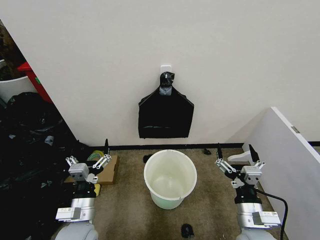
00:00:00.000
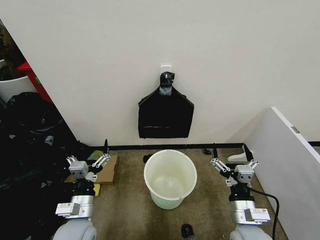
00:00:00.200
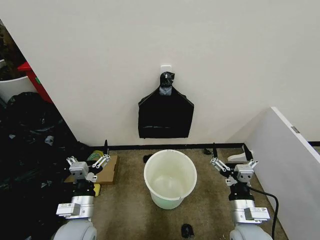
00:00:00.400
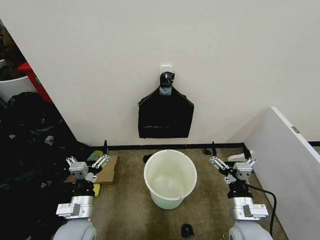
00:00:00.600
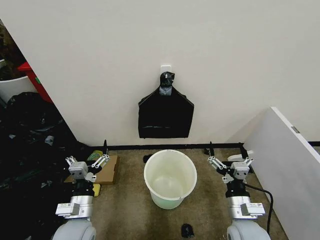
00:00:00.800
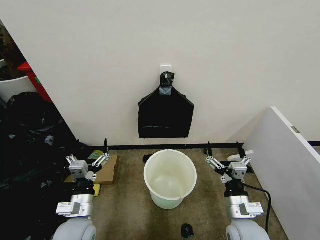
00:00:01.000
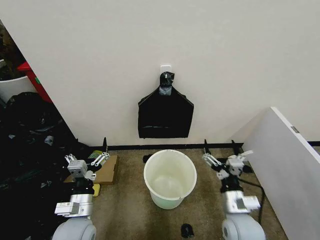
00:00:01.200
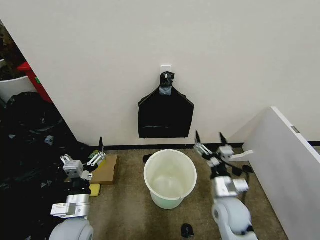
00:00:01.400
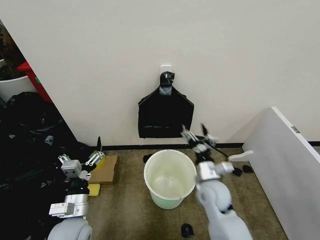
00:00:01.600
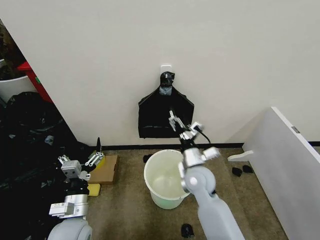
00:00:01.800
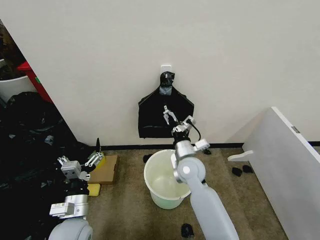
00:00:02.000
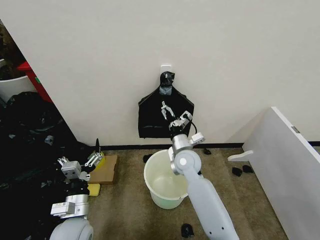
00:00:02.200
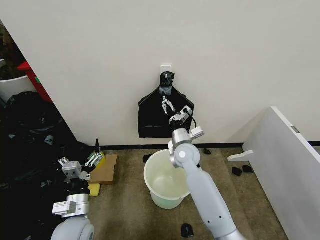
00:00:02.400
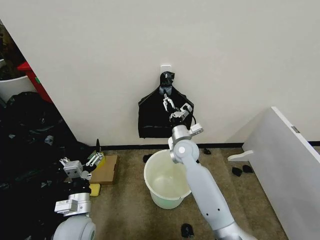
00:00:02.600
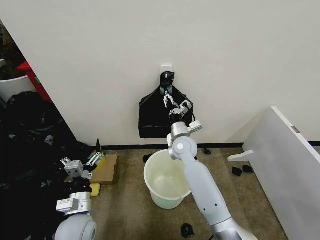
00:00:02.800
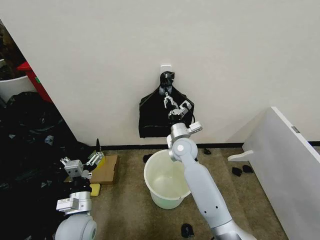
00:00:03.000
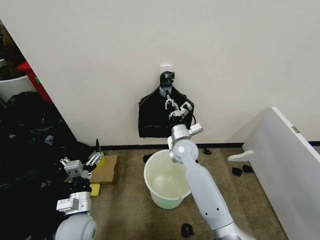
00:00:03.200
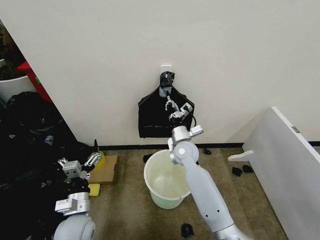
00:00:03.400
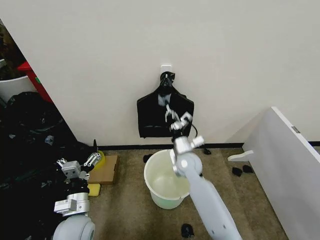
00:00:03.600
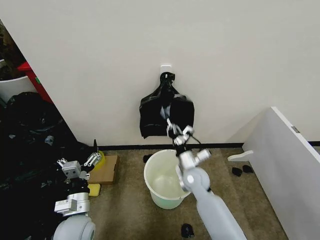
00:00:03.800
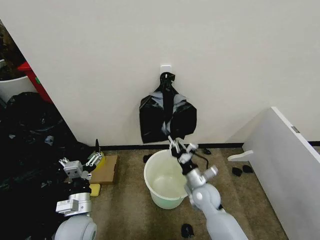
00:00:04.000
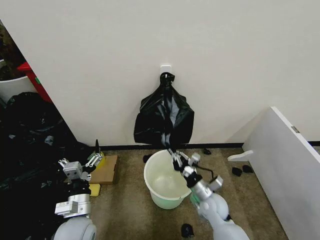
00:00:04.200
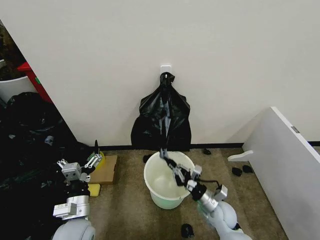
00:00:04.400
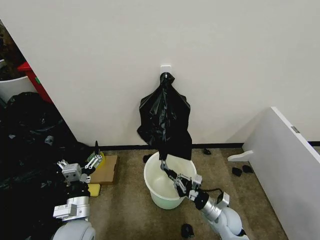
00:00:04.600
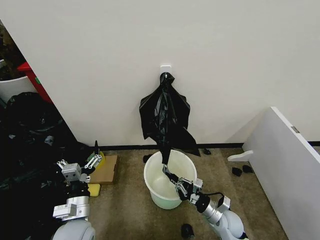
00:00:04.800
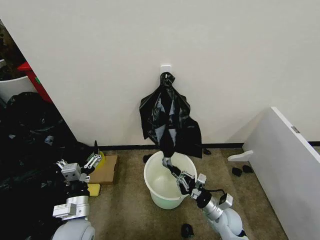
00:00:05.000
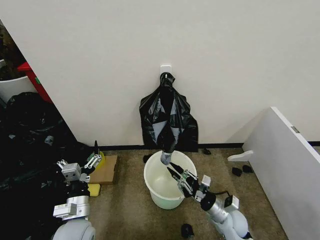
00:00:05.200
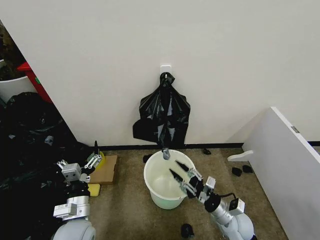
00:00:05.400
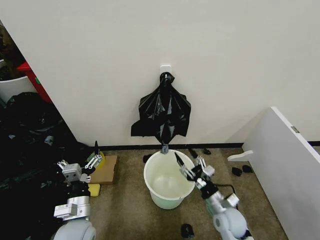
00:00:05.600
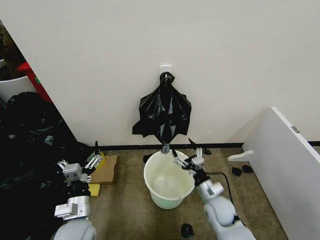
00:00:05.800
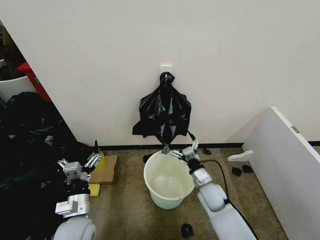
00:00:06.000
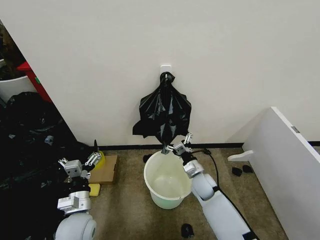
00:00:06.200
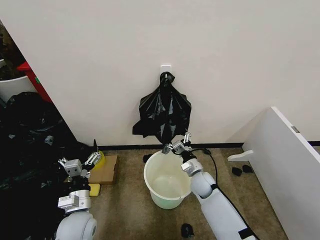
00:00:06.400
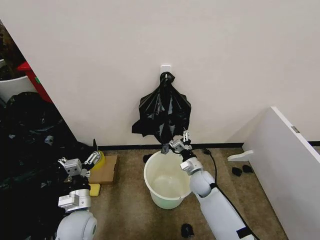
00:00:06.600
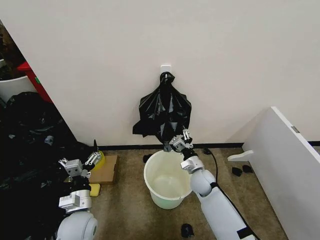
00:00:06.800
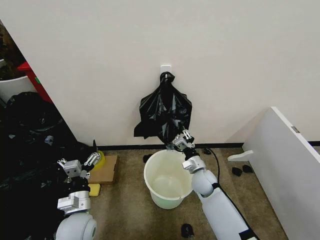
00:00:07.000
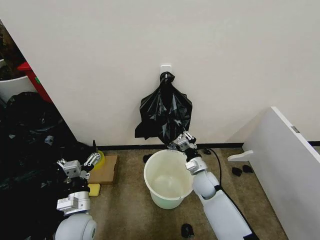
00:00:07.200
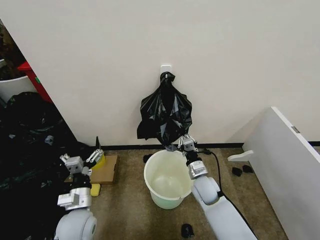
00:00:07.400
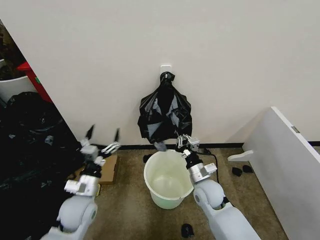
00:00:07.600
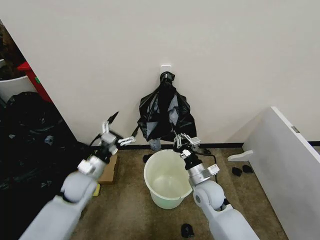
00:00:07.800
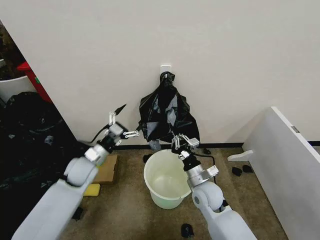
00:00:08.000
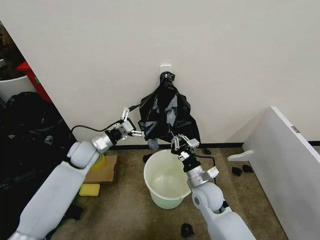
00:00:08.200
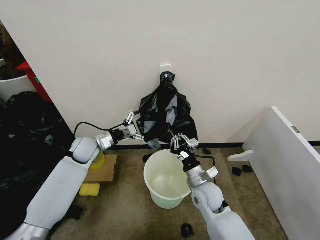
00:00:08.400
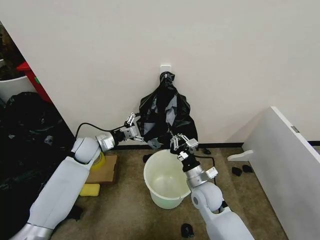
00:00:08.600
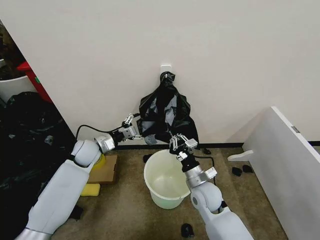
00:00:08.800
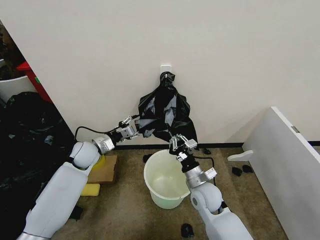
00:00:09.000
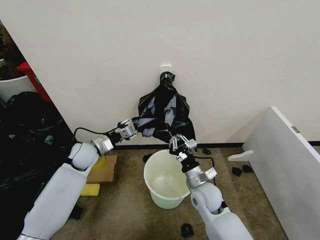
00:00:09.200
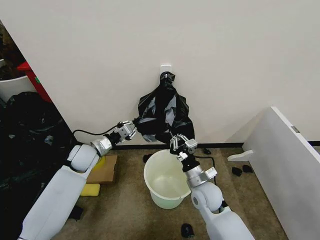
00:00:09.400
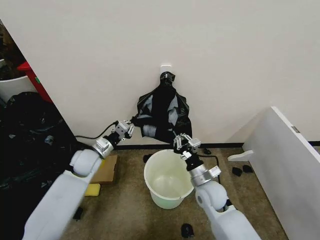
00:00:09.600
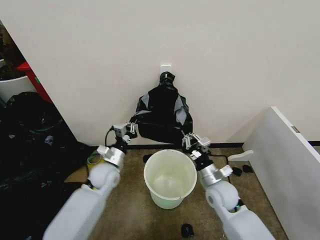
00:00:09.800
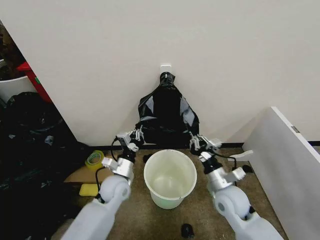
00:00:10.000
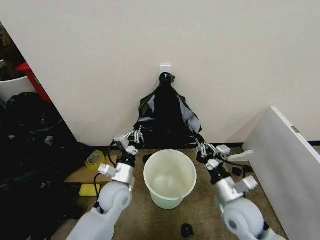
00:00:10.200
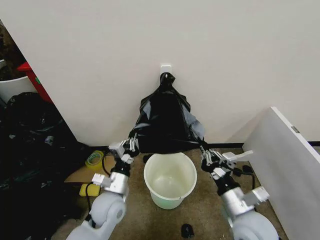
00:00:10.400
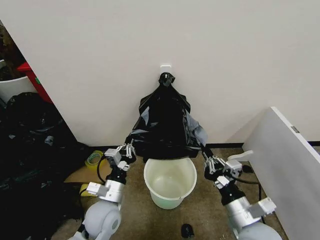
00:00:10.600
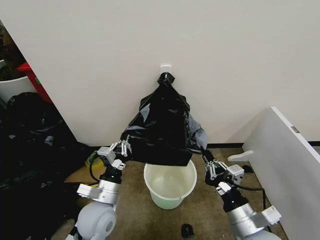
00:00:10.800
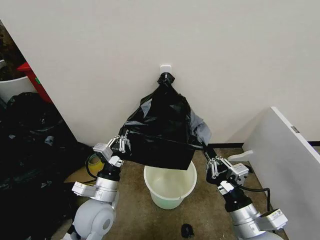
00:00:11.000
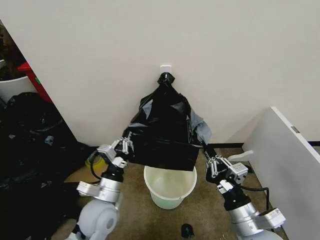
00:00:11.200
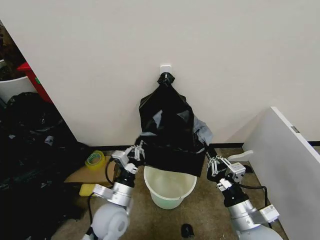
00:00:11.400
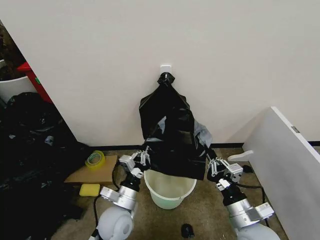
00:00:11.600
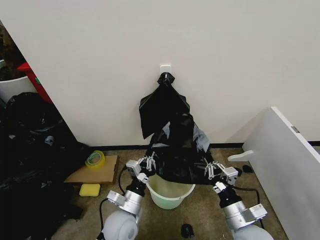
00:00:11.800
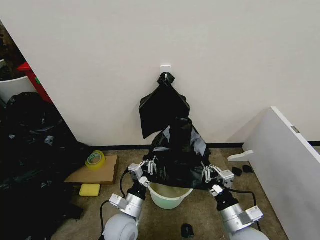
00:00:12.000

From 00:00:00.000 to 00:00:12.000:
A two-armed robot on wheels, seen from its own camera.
Task of the whole recording: Place the garbage bag over the trash bin.
From 00:00:01.600 to 00:00:03.000: The right gripper is displaced forward and to the left by about 20 cm, and closes.
From 00:00:03.000 to 00:00:04.400: The right gripper heads backward, downward and to the right, covering some 25 cm.
From 00:00:04.400 to 00:00:06.000: The right gripper moves forward, some 5 cm, and opens its fingers.
From 00:00:06.000 to 00:00:07.600: The right gripper closes its fingers.
From 00:00:07.600 to 00:00:09.000: The left gripper travels forward by about 20 cm, and closes.
From 00:00:09.000 to 00:00:10.400: The right gripper shifts approximately 15 cm backward, to the right and upward. Meanwhile the left gripper moves backward and to the right, approximately 20 cm, and closes.
From 00:00:10.400 to 00:00:12.000: The left gripper moves downward and backward, some 5 cm. The right gripper goes about 5 cm downward.

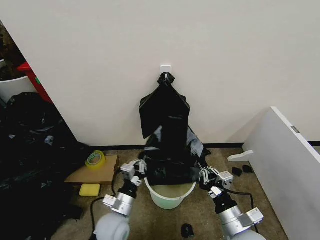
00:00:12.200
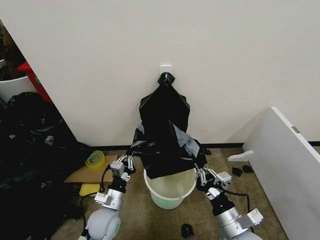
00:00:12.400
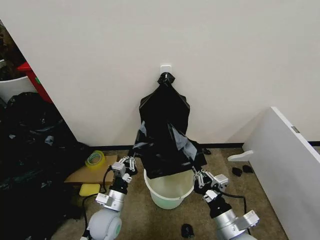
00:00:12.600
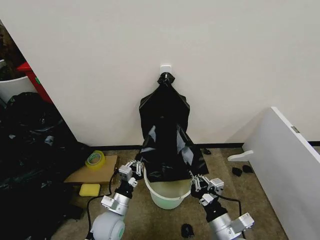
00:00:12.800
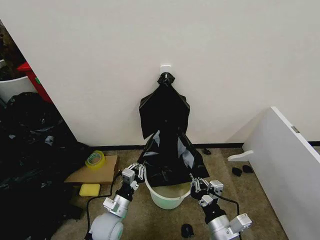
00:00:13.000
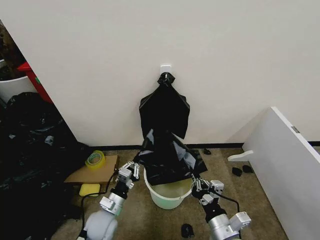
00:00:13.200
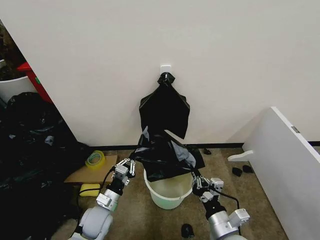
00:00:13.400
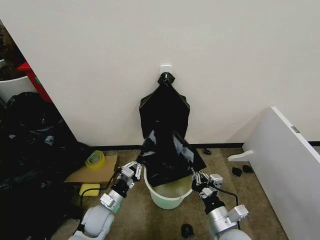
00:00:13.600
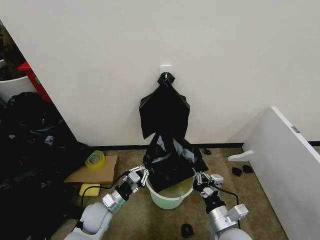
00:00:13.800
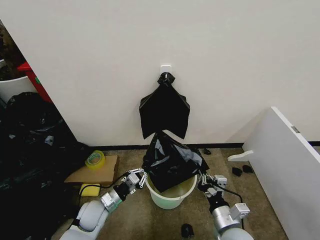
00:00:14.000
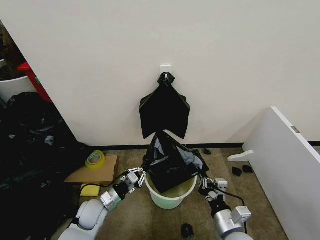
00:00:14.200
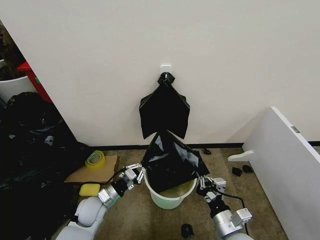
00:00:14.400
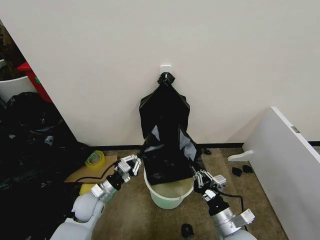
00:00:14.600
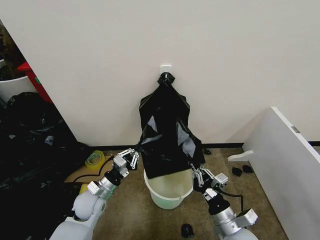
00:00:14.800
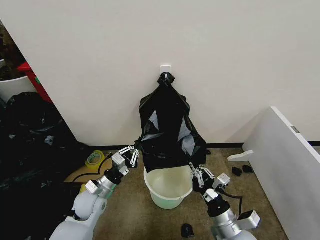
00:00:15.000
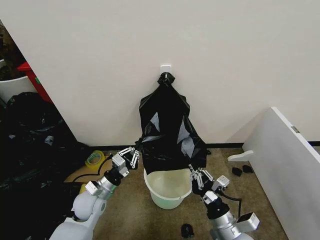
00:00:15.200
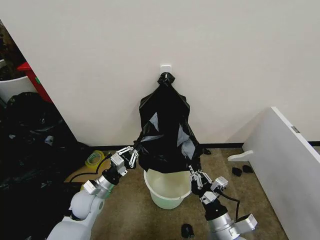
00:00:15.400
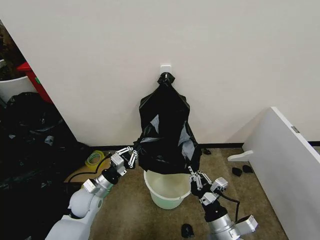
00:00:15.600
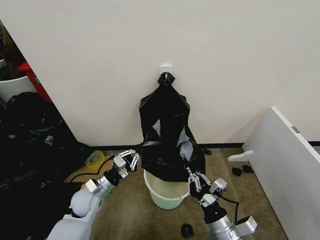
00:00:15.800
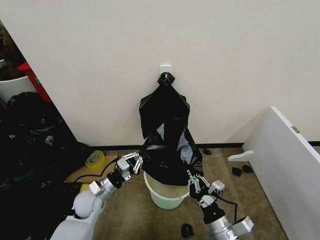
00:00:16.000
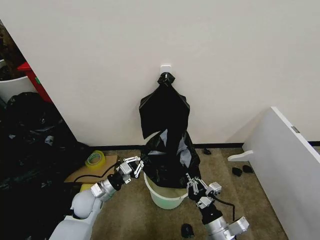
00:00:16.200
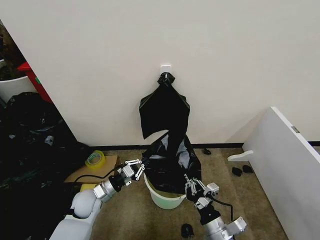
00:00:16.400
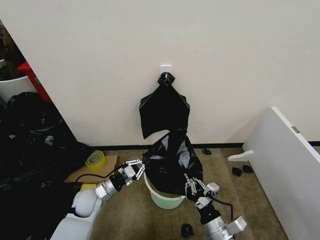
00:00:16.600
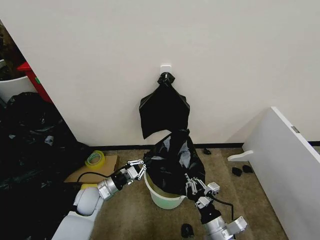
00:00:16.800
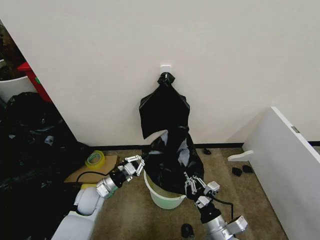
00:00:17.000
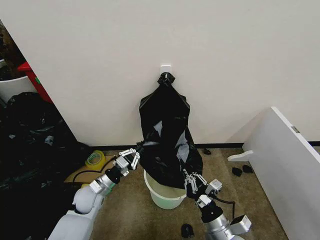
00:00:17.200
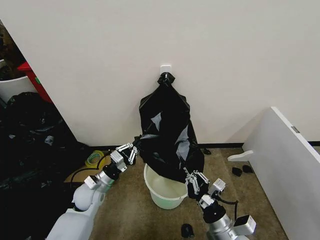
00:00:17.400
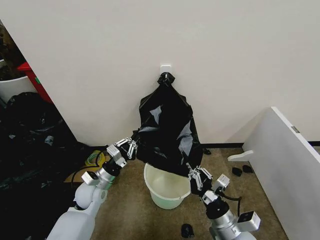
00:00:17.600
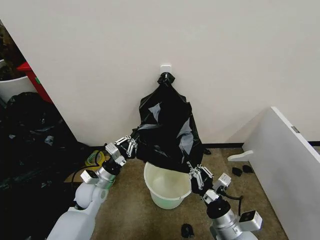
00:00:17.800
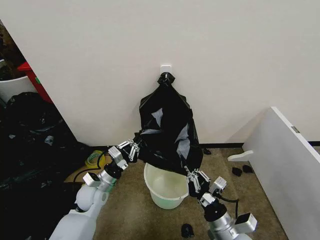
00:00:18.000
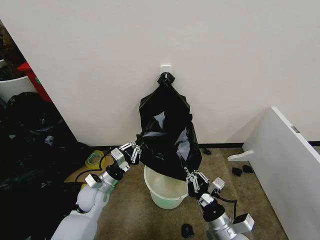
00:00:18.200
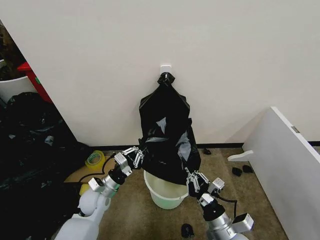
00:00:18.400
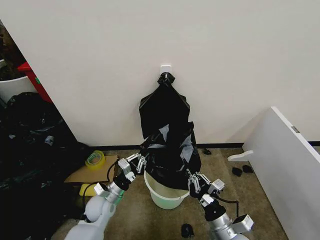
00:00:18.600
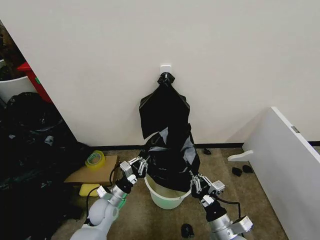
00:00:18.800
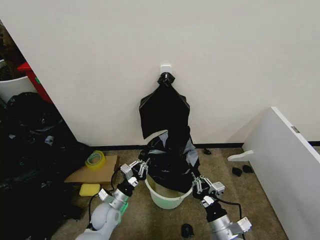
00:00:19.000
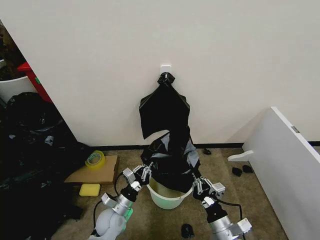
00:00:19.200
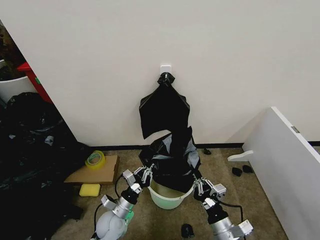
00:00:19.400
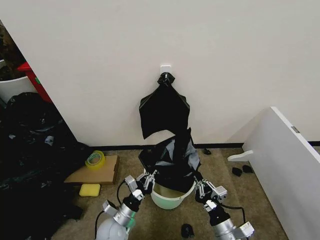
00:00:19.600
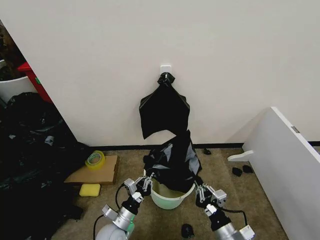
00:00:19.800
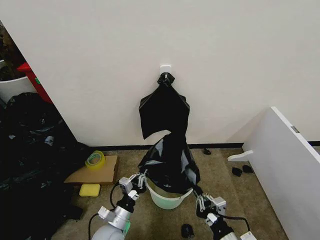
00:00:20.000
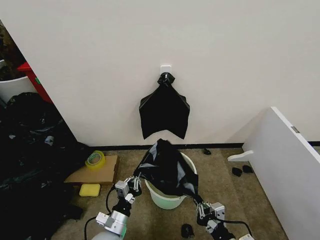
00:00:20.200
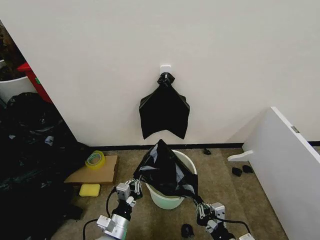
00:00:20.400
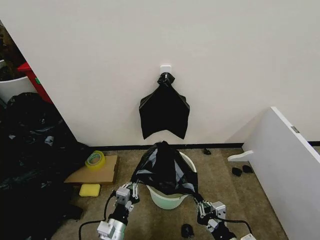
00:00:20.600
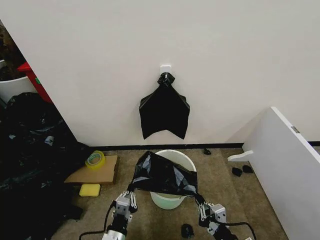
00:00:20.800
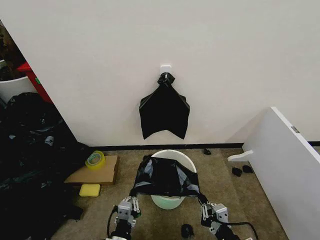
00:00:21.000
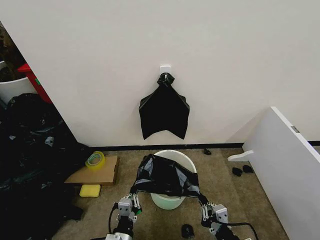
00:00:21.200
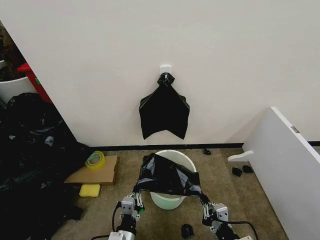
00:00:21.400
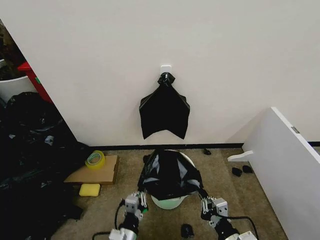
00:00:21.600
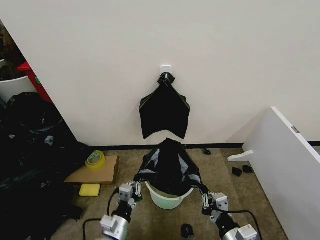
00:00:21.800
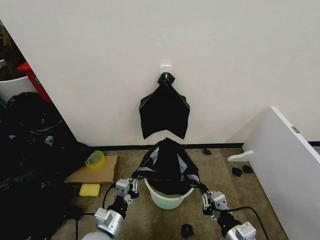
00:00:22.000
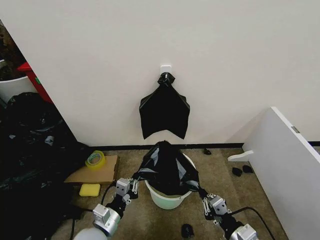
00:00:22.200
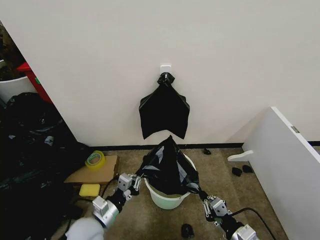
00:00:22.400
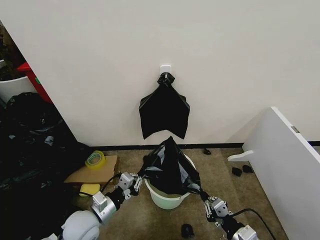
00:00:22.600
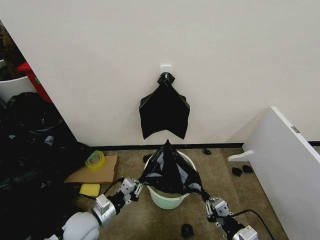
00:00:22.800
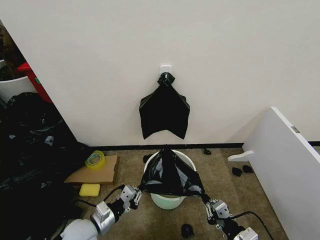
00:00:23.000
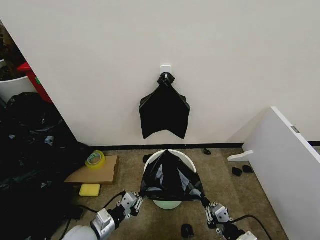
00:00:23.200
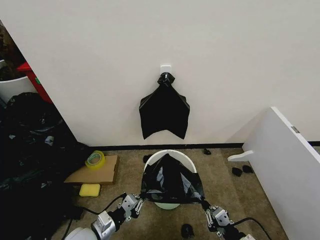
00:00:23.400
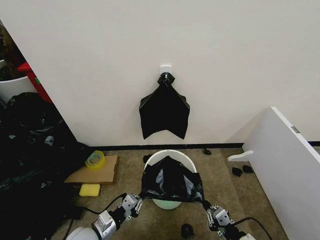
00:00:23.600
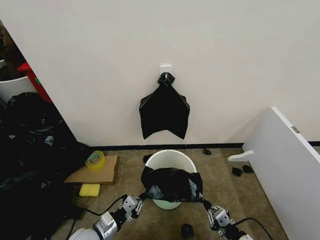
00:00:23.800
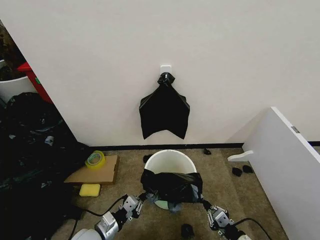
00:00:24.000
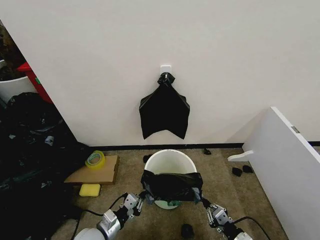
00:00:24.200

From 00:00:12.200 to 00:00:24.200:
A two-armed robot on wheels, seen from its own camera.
Task of the whole recording: Place the garbage bag over the trash bin.
From 00:00:12.200 to 00:00:13.800: The left gripper goes approximately 5 cm to the left.
From 00:00:13.800 to 00:00:15.200: The left gripper heads upward, covering some 5 cm.
From 00:00:18.200 to 00:00:19.800: The right gripper moves about 5 cm; the left gripper heads backward, downward and to the right, covering some 15 cm.
From 00:00:19.800 to 00:00:21.200: The left gripper shifts approximately 10 cm backward. Meanwhile the right gripper heads backward, covering about 5 cm.
From 00:00:21.200 to 00:00:22.600: The left gripper shifts about 15 cm forward, to the left and upward; the right gripper changes place by some 5 cm.
From 00:00:22.600 to 00:00:24.200: The grippers both shift downward by some 10 cm.
